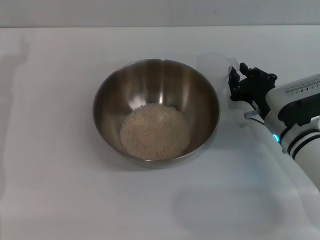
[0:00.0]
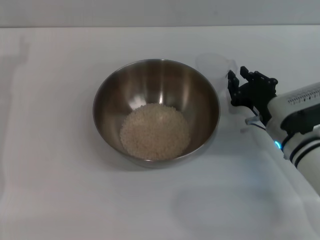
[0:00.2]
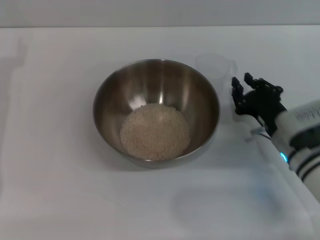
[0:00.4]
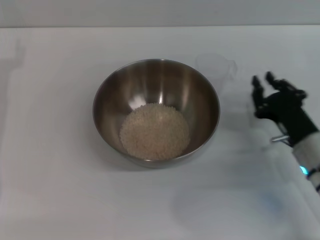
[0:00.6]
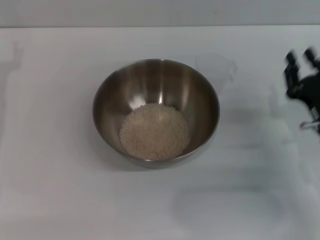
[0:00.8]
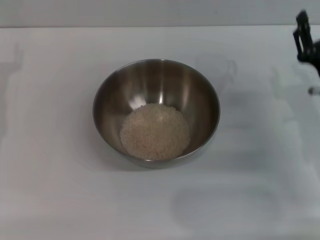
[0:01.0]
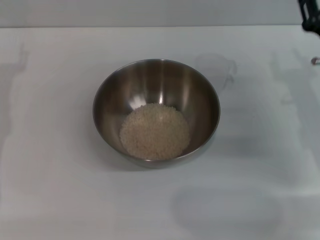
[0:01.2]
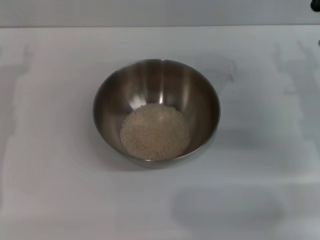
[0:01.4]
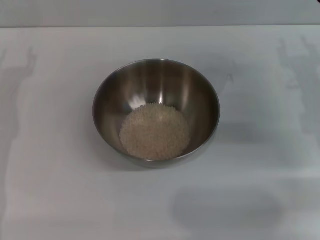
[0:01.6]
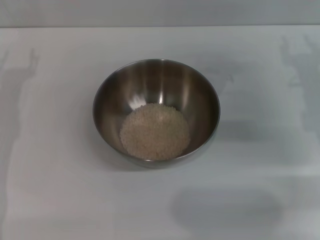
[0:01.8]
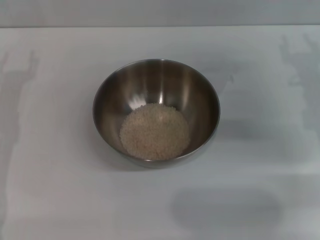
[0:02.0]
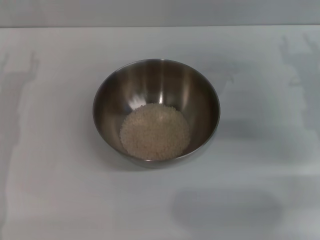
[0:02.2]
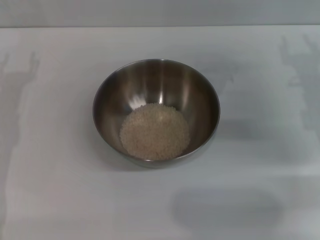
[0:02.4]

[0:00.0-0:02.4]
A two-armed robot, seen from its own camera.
Task of the whole recording: Place the bowl in the middle of the table with one hand and pour the rice from the grain cup into it with the other hand.
0:00.0 to 0:01.2: The right gripper travels upward and to the right by about 10 cm, and opens up.
0:01.2 to 0:02.4: There are only small adjustments of the grippers.

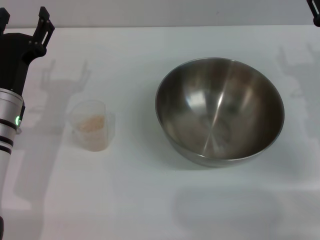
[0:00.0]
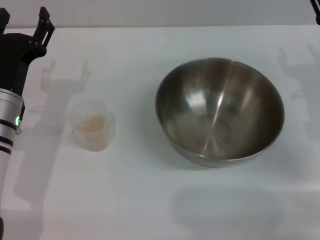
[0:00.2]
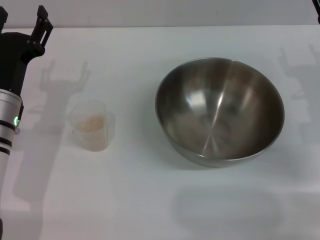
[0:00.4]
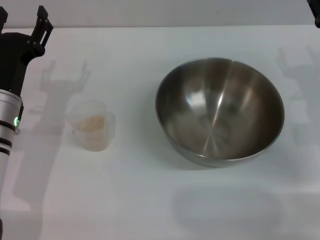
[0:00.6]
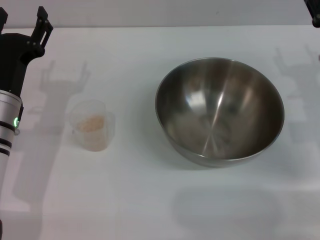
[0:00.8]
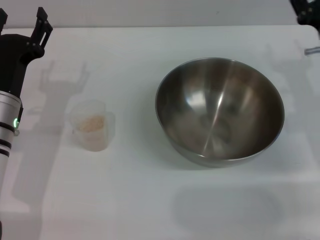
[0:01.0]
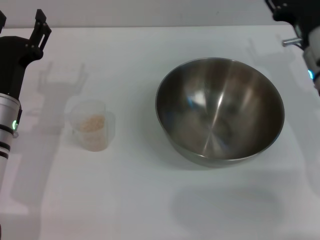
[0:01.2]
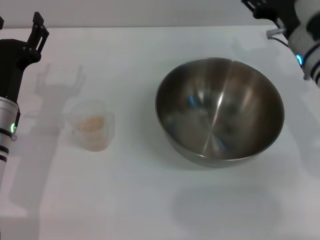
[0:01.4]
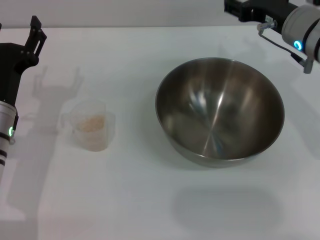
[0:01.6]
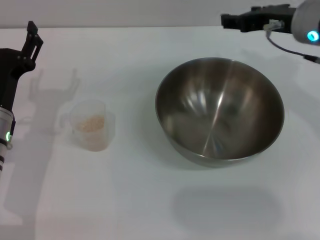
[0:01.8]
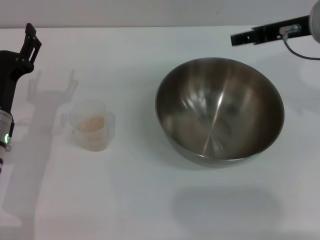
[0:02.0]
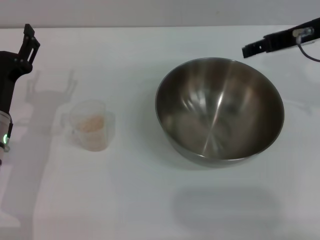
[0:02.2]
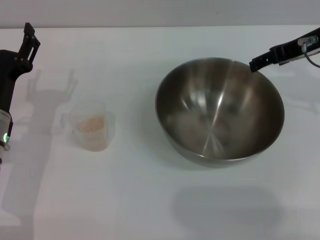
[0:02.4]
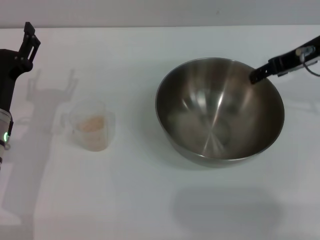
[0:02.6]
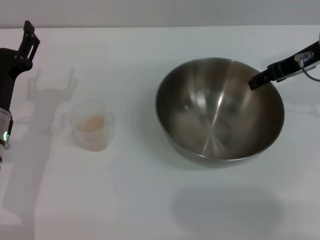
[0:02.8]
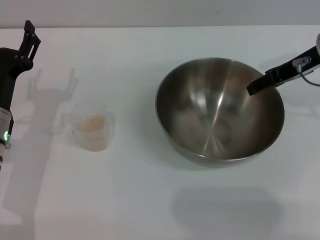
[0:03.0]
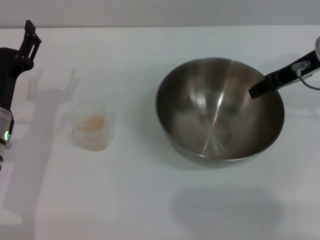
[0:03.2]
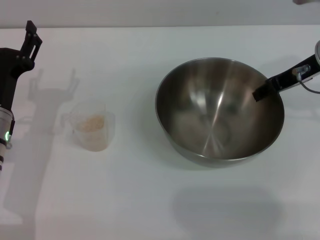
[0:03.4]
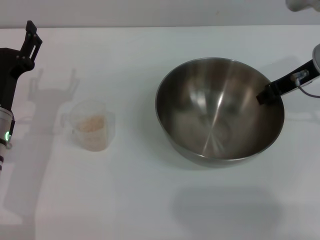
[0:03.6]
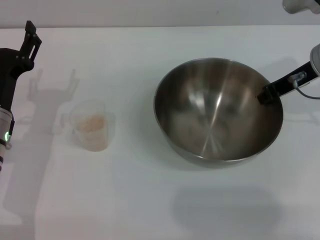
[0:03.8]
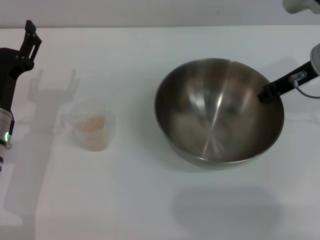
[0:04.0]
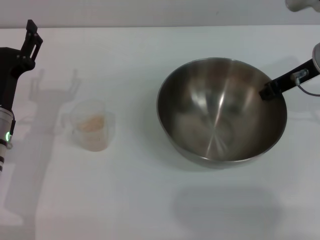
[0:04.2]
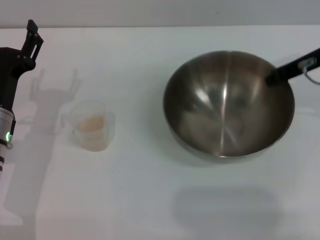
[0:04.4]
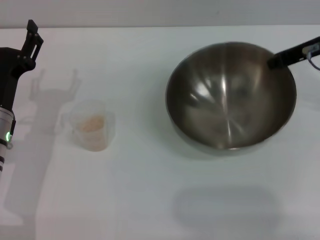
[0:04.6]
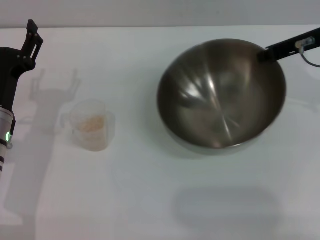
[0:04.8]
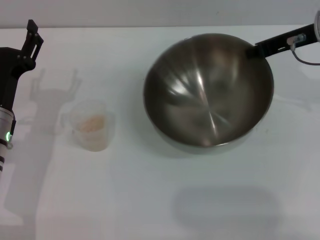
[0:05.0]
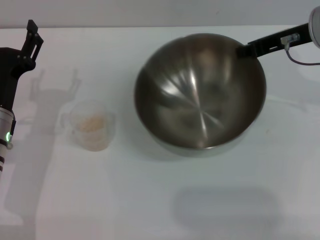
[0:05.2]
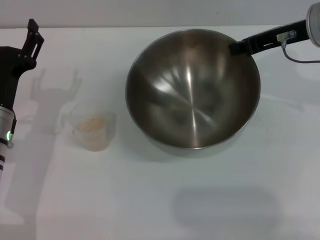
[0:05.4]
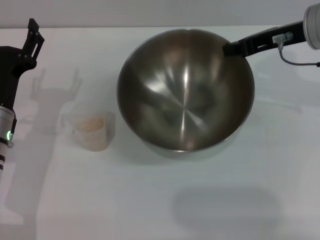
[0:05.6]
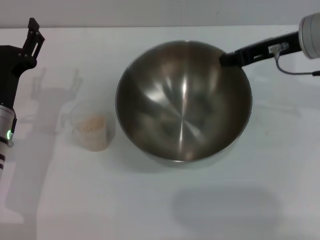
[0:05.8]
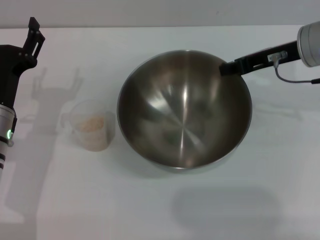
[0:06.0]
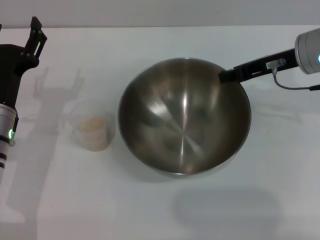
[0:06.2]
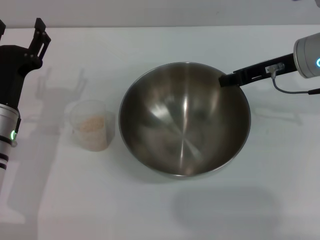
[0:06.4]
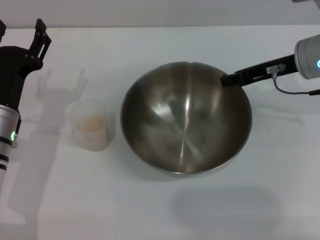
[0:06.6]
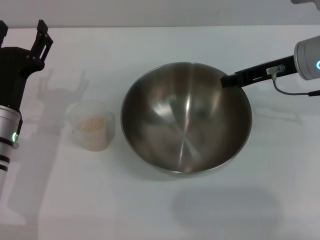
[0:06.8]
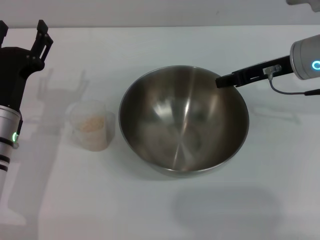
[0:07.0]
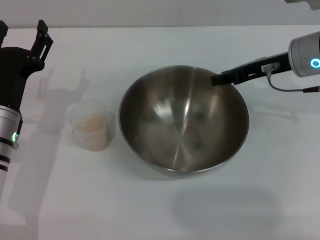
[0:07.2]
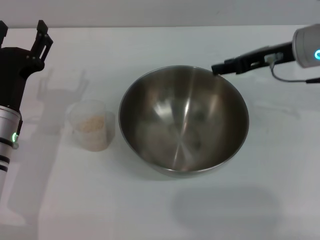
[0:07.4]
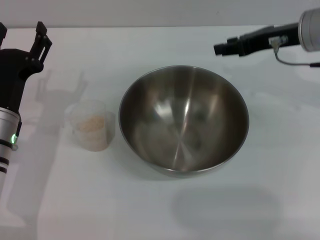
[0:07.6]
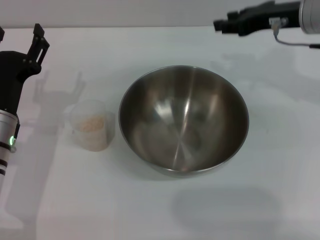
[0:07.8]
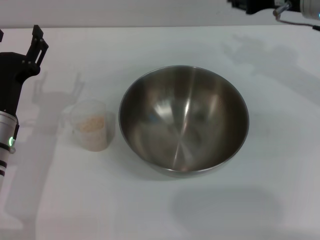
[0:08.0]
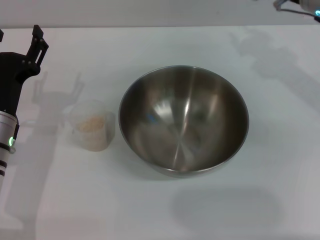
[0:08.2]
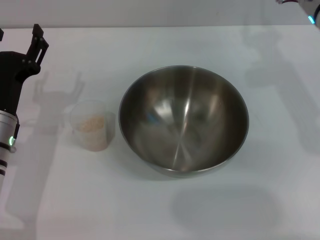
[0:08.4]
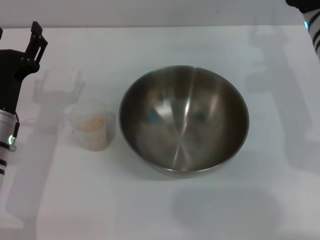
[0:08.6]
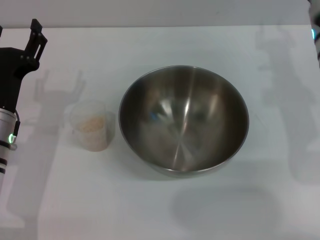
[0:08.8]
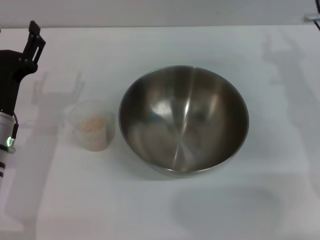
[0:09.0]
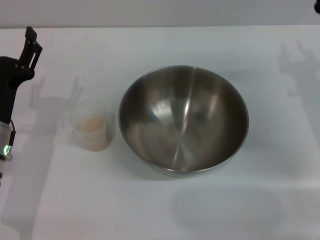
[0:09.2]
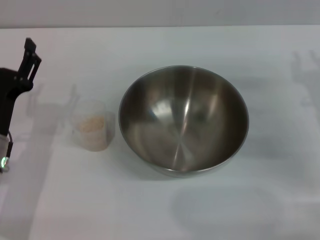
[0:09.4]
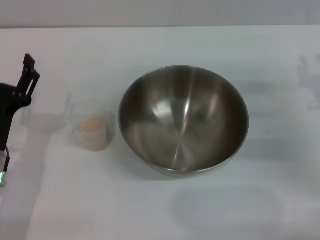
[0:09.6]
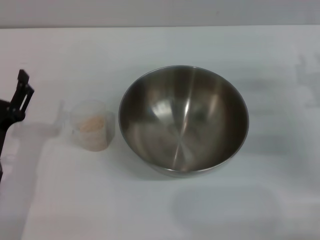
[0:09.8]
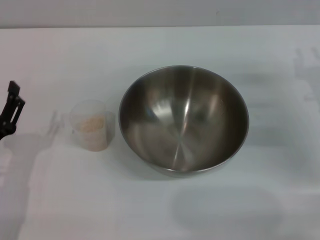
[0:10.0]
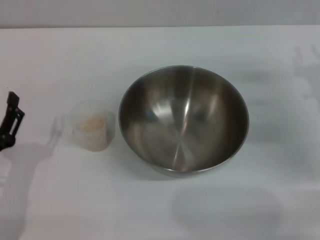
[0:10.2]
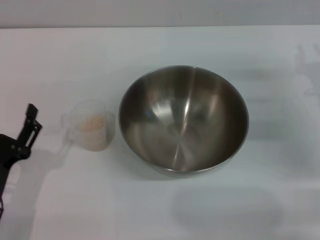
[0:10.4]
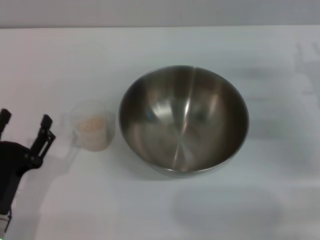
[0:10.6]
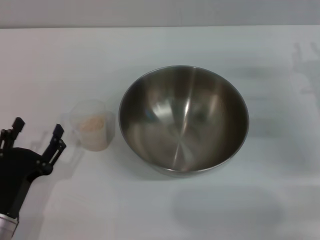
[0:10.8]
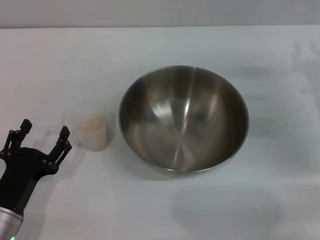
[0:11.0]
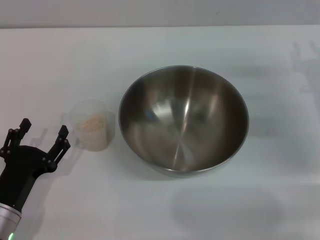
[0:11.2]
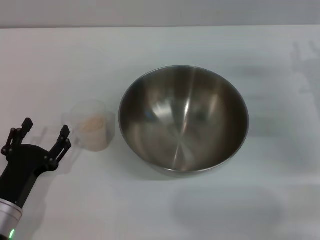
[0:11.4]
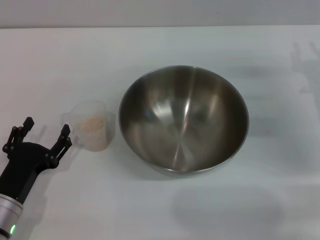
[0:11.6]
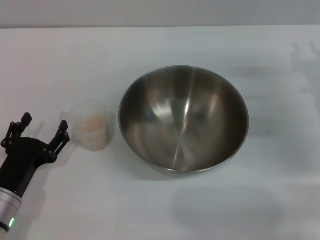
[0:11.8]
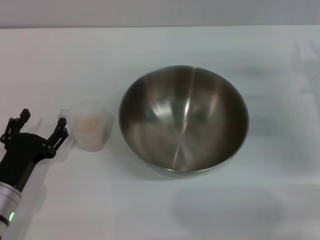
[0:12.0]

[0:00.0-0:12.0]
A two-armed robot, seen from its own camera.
Task of the whole recording: Place the bowl in the middle of the table with one hand and pour the rice from the grain cup into it with the other hand.
Step, 0:00.0 to 0:05.0: Pick up the bowl with the right gripper.
Step, 0:05.2 to 0:07.8: Place the bowl in the center of view with the right gripper.
0:00.0 to 0:01.6: The right gripper heads to the left, upward and forward, covering about 10 cm.
0:01.6 to 0:03.0: The right gripper changes place by about 5 cm.
0:03.0 to 0:04.4: The right gripper closes its fingers.
0:06.0 to 0:07.6: The right gripper opens.
0:07.6 to 0:09.0: The right gripper travels downward by approximately 5 cm.
0:09.0 to 0:10.4: The right gripper travels to the right by some 5 cm, while the left gripper heads backward, covering approximately 10 cm.
0:10.4 to 0:12.0: The grippers move only a little.

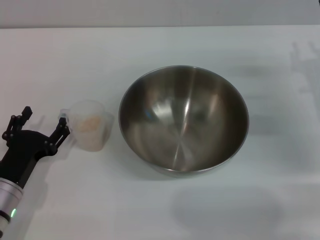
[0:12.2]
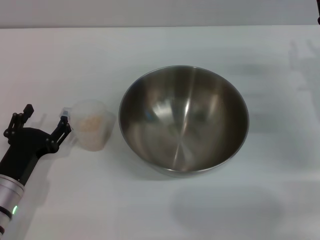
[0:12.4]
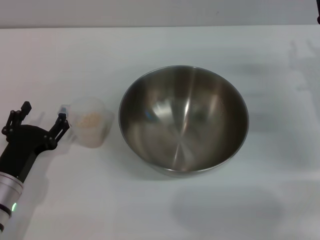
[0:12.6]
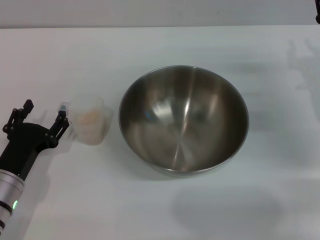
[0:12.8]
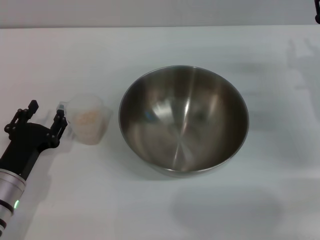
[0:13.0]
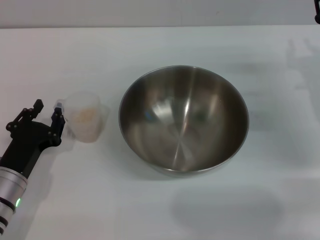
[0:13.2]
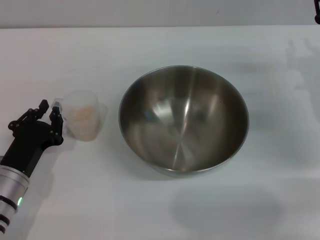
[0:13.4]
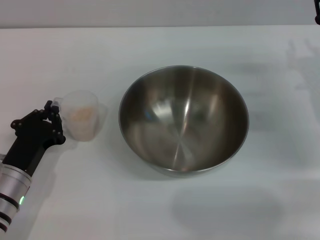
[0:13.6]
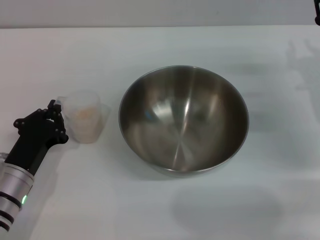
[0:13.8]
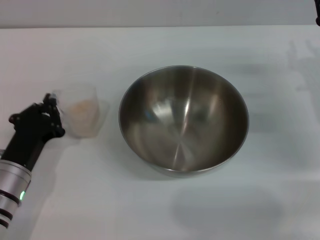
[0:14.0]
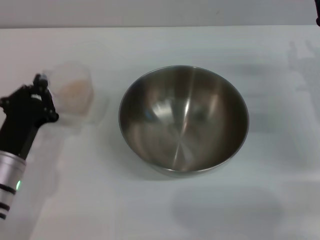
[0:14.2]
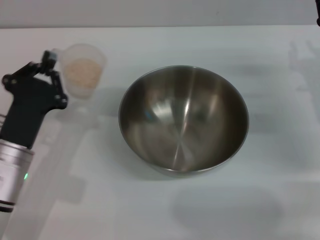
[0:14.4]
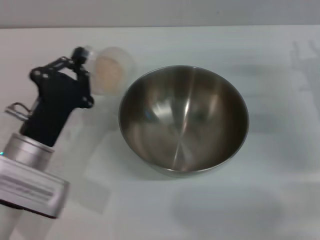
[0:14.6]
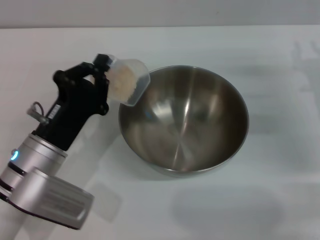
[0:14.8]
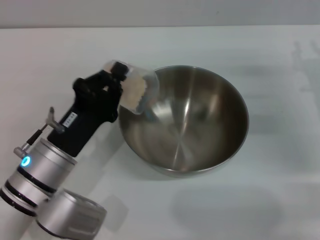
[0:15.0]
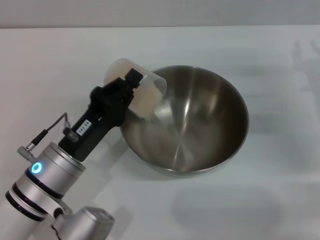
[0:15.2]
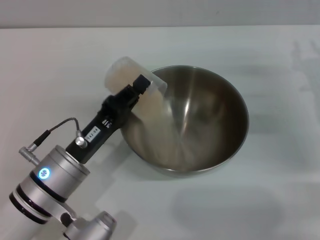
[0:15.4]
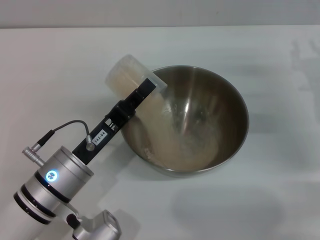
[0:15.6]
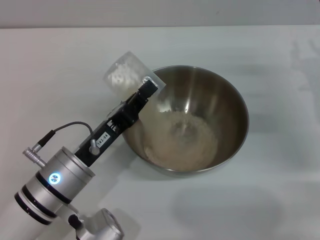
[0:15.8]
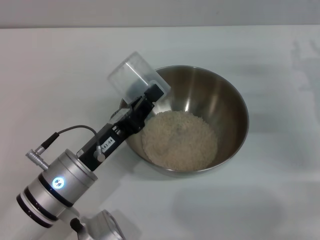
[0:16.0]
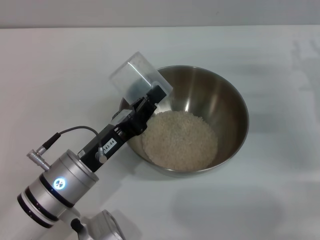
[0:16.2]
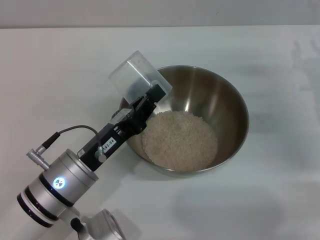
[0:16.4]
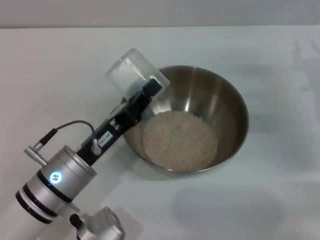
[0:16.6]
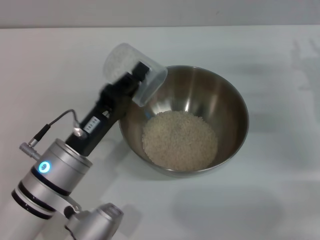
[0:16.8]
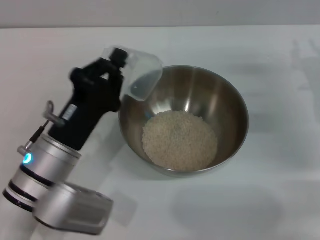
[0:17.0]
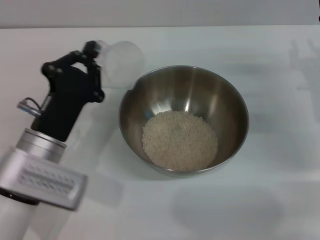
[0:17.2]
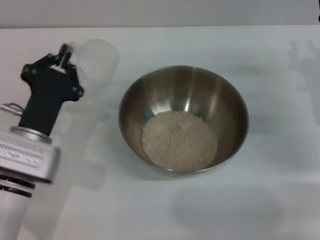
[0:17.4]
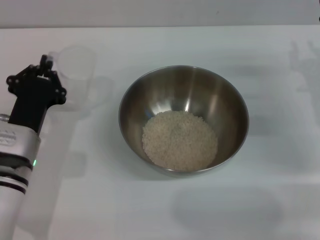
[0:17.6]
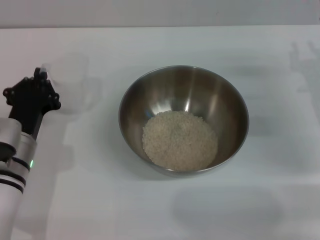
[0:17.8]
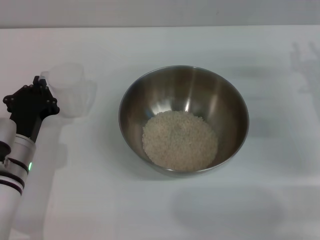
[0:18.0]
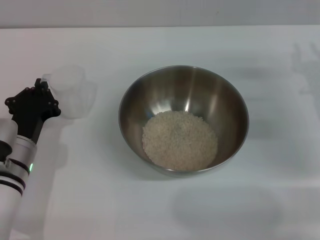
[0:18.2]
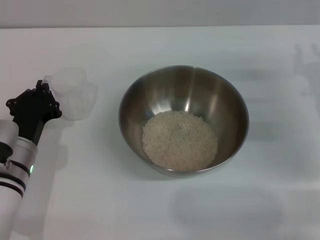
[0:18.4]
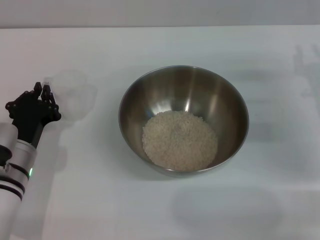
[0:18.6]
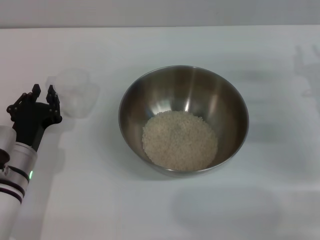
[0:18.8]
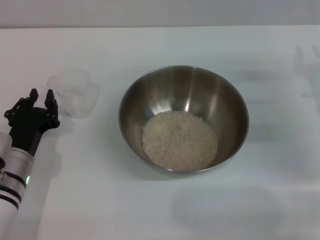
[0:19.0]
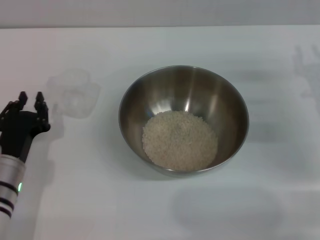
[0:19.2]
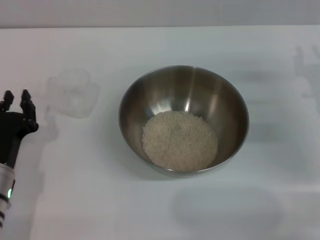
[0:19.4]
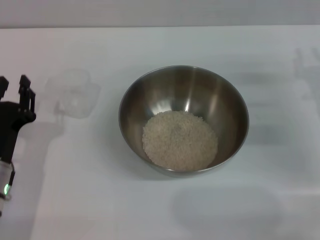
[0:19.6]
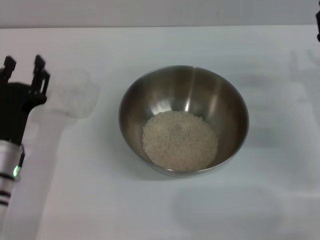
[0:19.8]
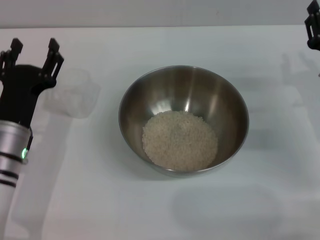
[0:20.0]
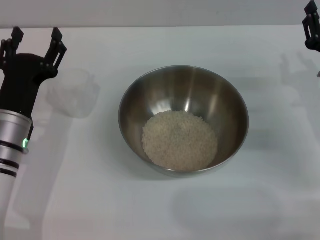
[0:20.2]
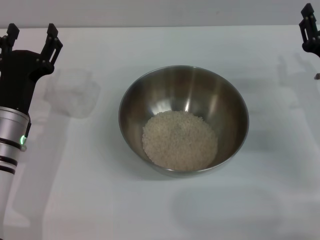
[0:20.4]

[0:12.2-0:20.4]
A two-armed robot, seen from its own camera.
Task of the whole recording: Place the bowl in the middle of the table with one hand and pour the rice from the grain cup into it with the other hand.
Step, 0:12.2 to 0:14.6: Pick up the cup with rice in it with the left gripper.
Step, 0:14.8 to 0:15.8: Pour the rice from the cup into the bowl with the left gripper.
Step, 0:16.2 to 0:18.8: Place the cup on the table with the left gripper.
0:12.2 to 0:13.8: The left gripper closes.
0:13.8 to 0:15.4: The left gripper heads to the right, covering some 10 cm.
0:17.2 to 0:18.8: The left gripper moves downward and to the left, roughly 5 cm.
0:18.8 to 0:20.4: The left gripper moves roughly 5 cm, and opens its fingers.
